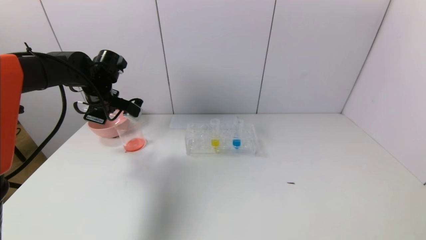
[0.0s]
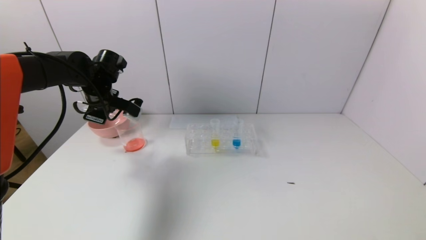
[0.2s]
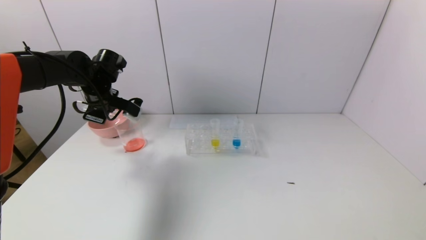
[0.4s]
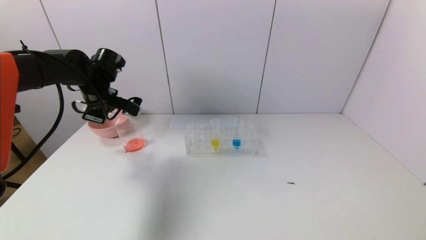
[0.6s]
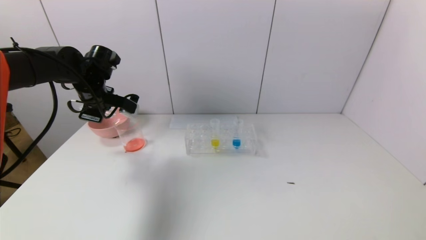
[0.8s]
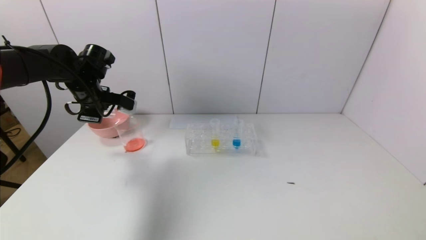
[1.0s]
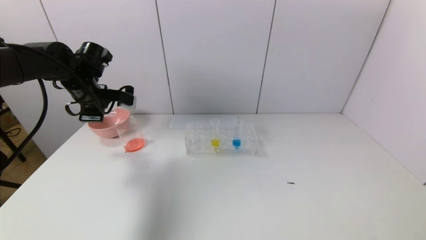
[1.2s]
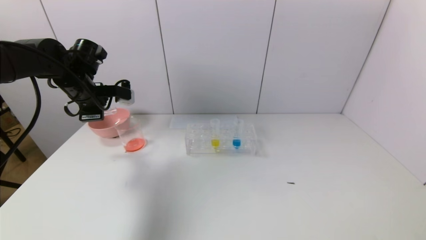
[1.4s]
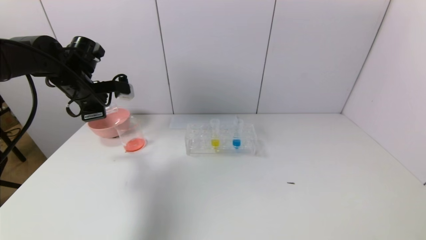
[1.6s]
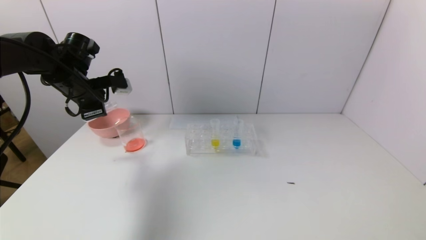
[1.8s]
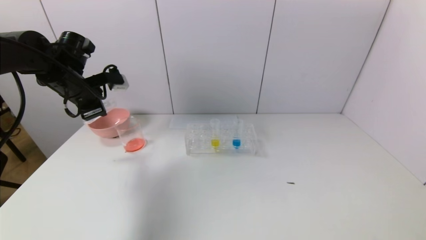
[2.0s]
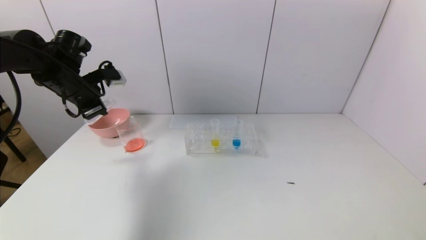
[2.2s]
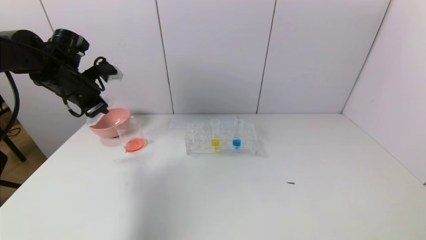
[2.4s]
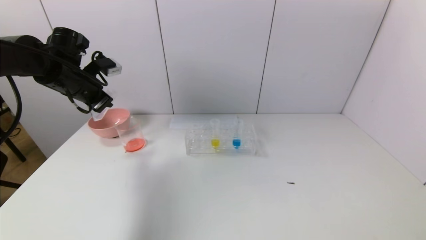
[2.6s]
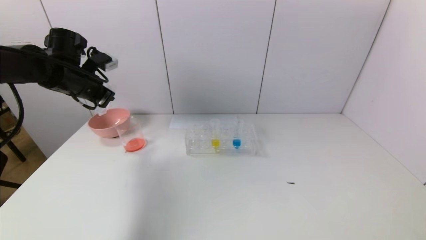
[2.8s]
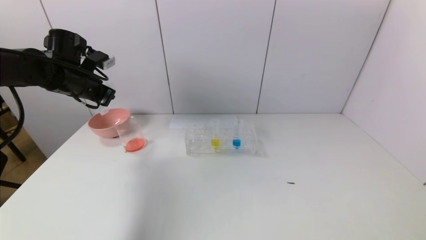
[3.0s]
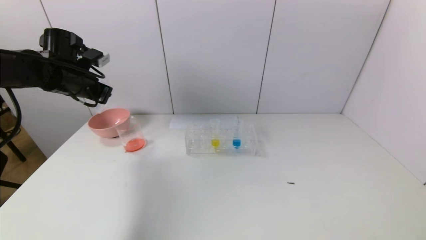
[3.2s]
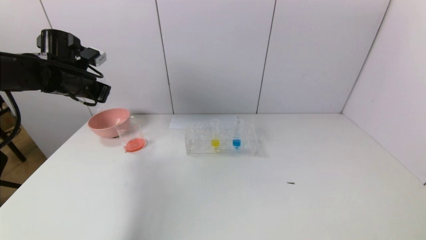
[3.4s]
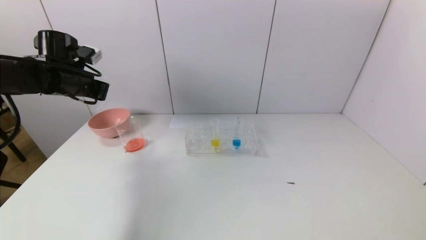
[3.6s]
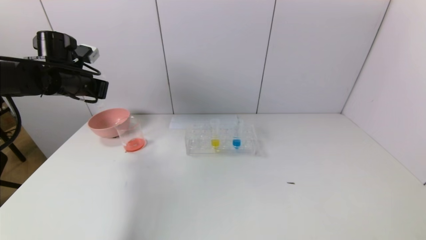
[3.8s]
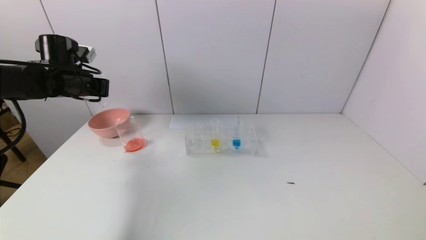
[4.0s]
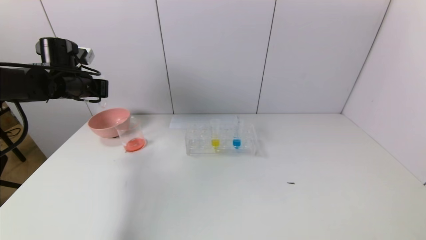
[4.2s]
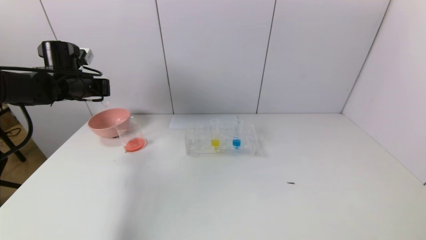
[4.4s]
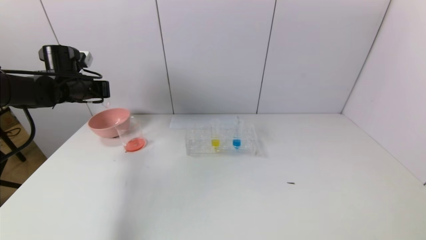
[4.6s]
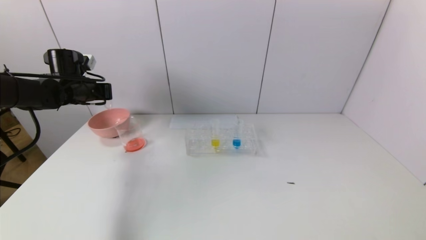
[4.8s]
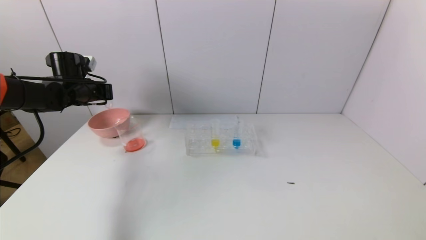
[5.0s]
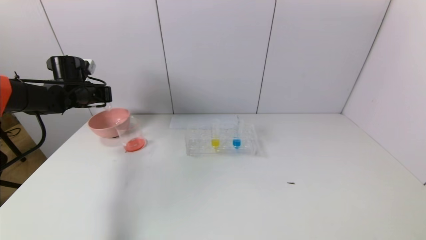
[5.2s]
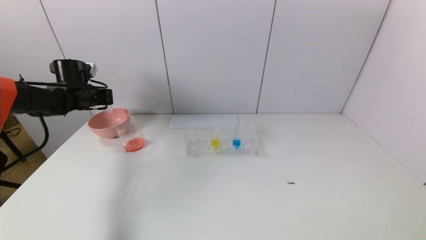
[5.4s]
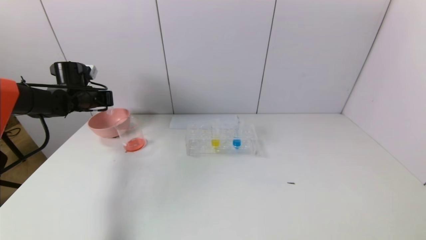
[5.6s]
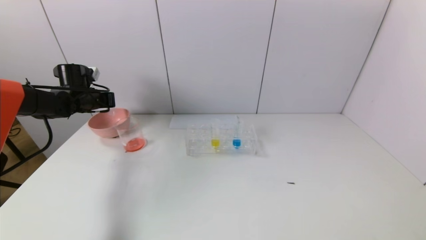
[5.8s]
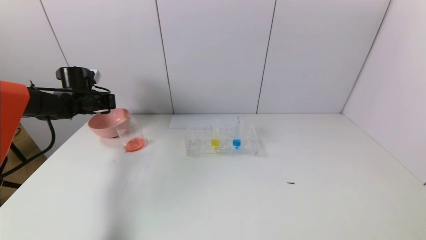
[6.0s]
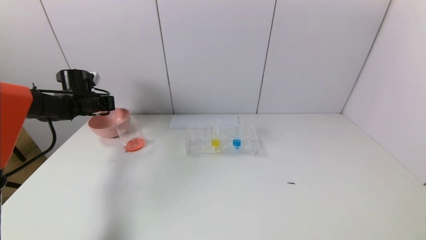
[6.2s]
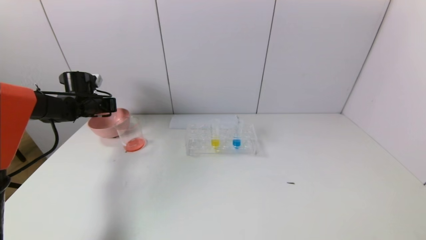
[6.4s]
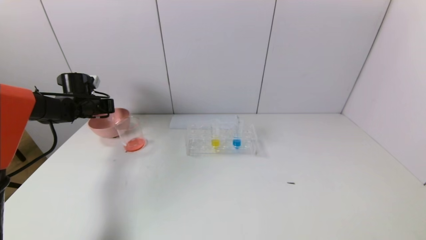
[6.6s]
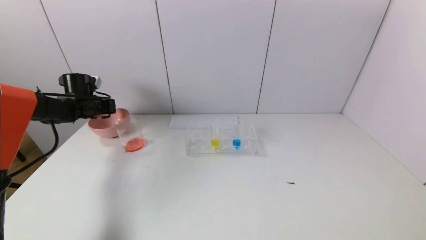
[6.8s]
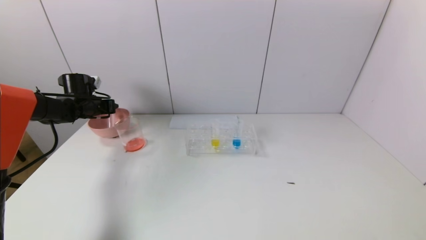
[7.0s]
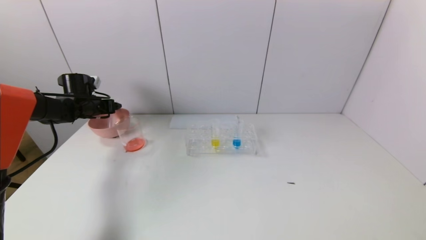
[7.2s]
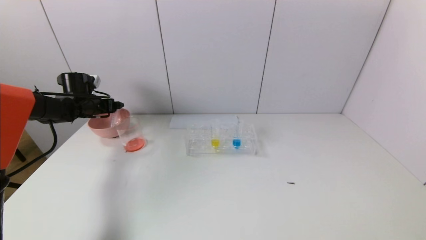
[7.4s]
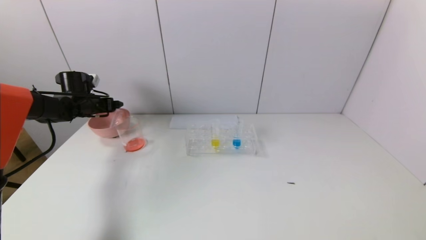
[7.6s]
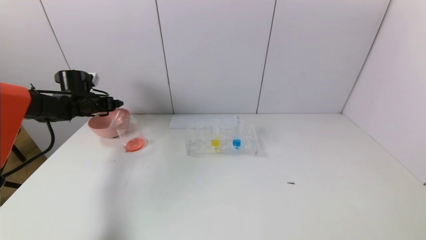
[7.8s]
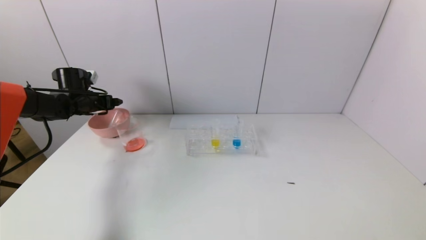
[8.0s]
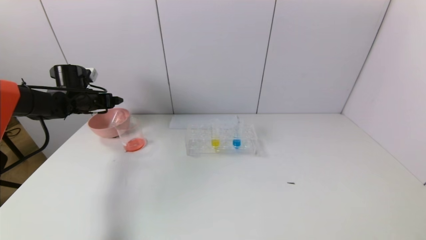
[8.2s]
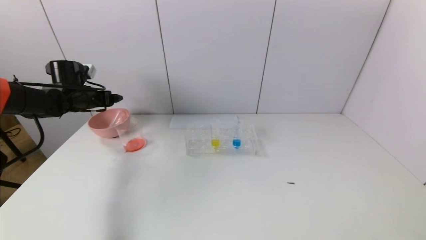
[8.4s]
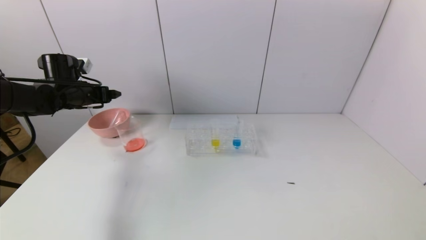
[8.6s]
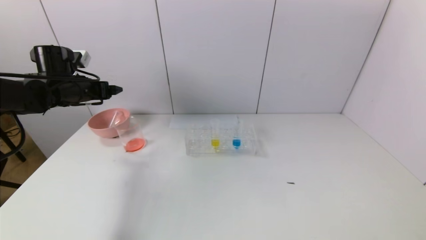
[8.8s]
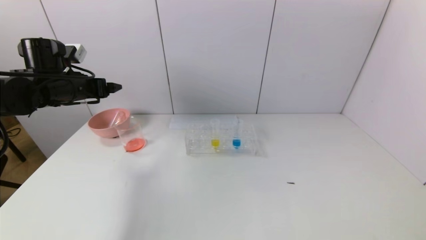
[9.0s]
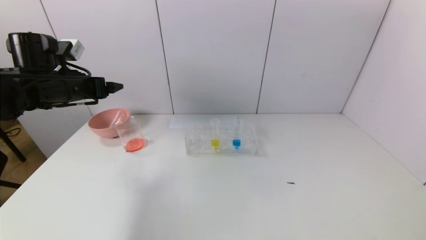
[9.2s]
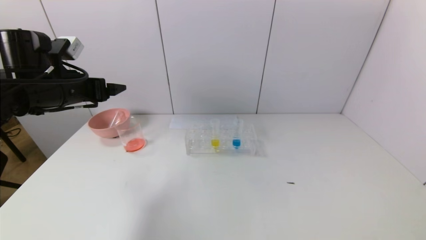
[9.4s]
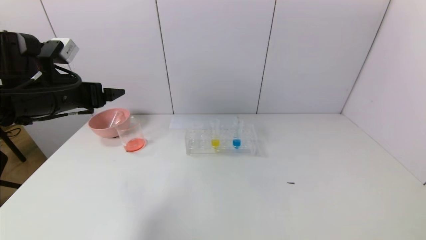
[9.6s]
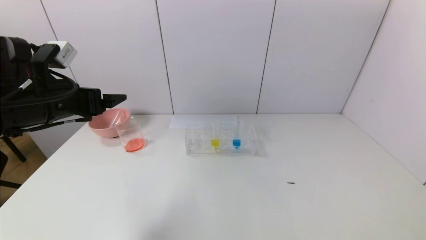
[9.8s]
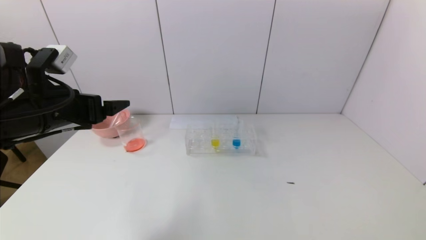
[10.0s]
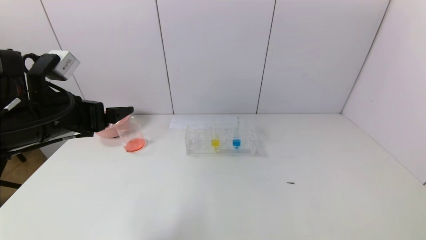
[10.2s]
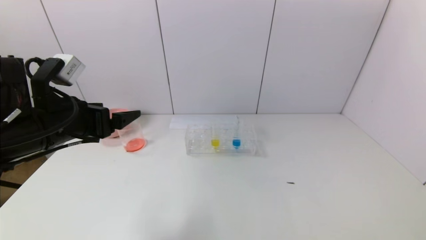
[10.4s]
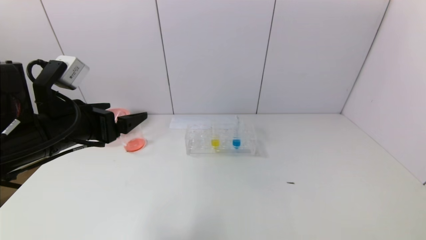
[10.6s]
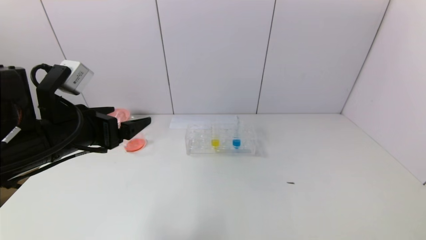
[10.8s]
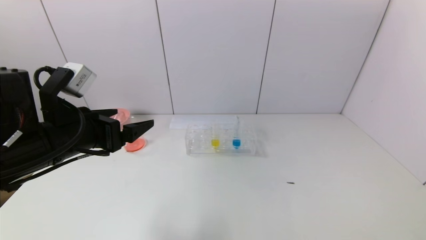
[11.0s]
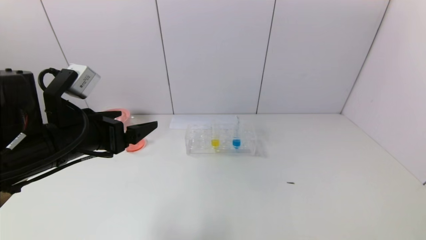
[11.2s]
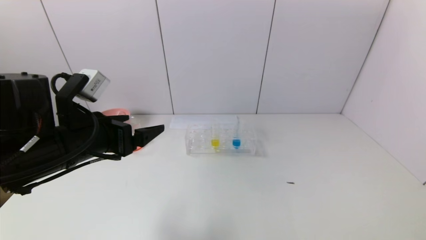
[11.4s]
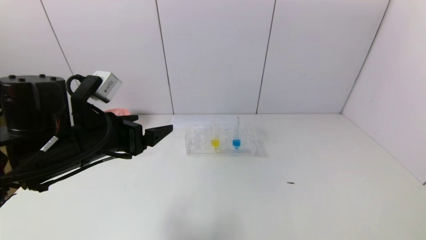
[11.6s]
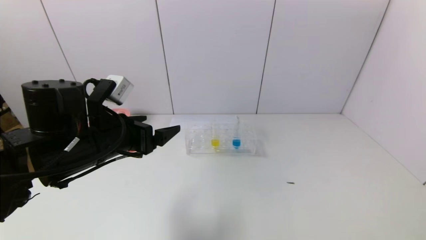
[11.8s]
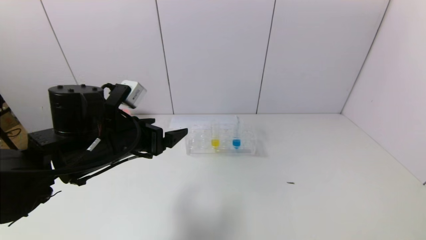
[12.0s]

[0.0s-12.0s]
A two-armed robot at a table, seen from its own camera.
Task of the whole recording: pick up the test tube with yellow pigment and the test tube with red pigment by grippers and pour them into the beaker.
Step, 1.6s to 7.2s: Place the test tube into the pink bowl with the left gripper.
4.4s to 6.0s: The left gripper is displaced downward and forward by roughly 10 cm.
6.0s to 7.6s: The left gripper opens up.
7.6s to 9.0s: The left gripper shifts some 15 cm backward, upward and to the right.
9.0s to 10.4s: The left gripper travels backward and to the right by about 15 cm.
10.4s to 12.0s: The left gripper heads to the right, covering roughly 5 cm.

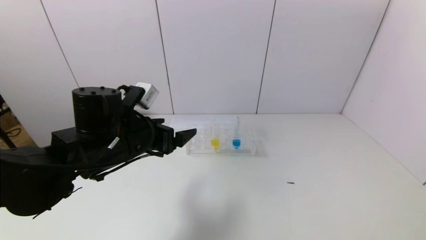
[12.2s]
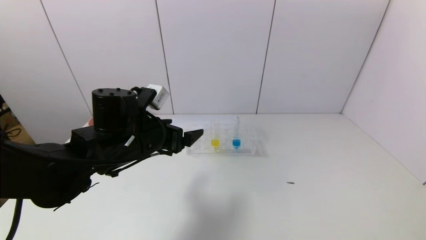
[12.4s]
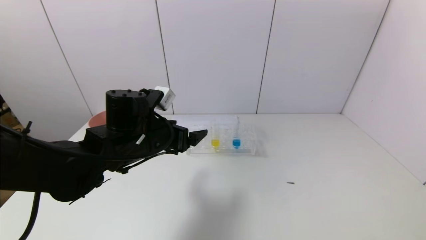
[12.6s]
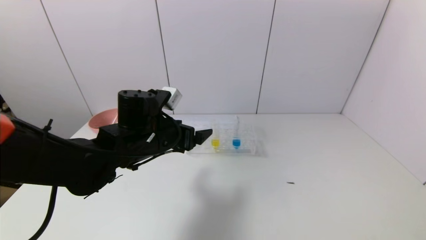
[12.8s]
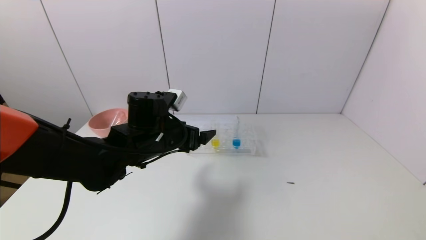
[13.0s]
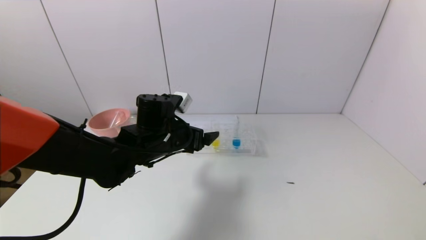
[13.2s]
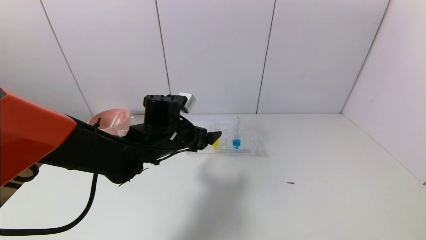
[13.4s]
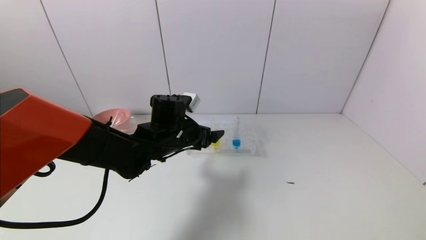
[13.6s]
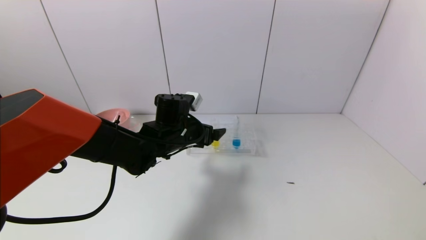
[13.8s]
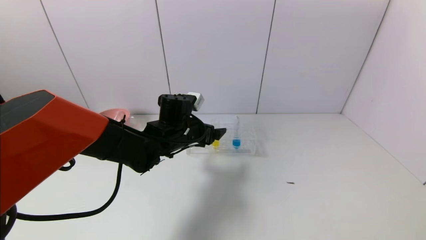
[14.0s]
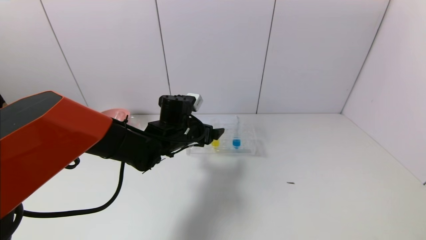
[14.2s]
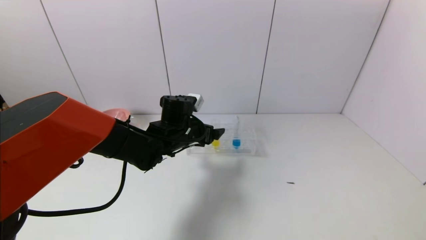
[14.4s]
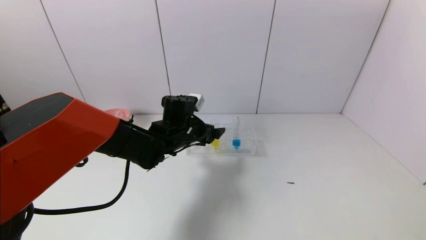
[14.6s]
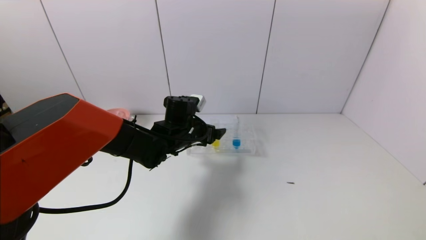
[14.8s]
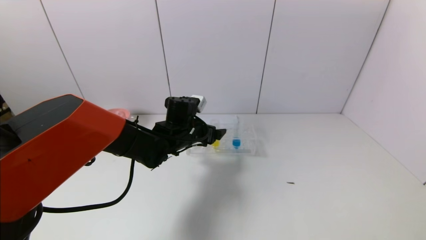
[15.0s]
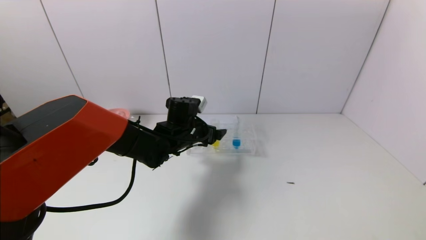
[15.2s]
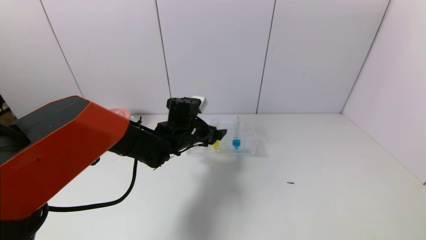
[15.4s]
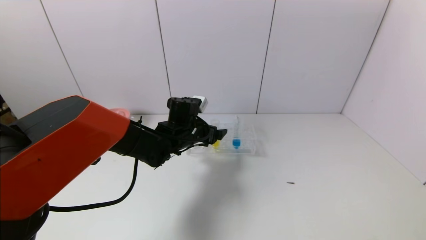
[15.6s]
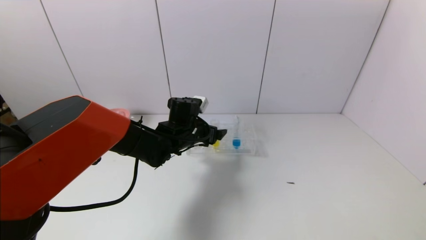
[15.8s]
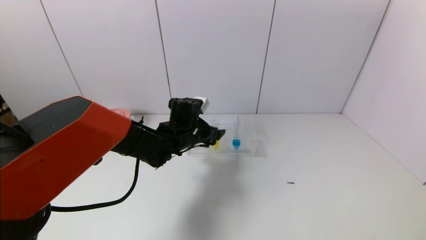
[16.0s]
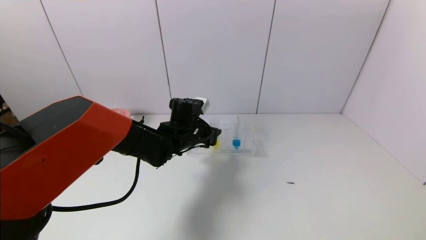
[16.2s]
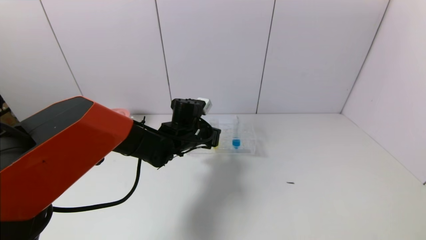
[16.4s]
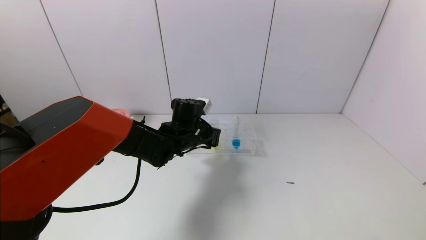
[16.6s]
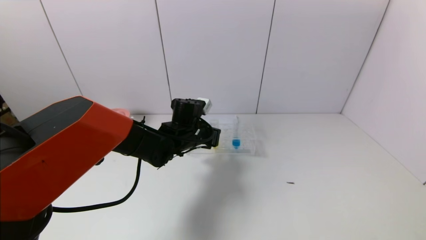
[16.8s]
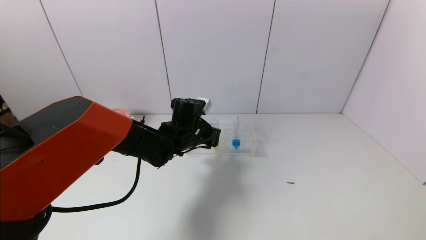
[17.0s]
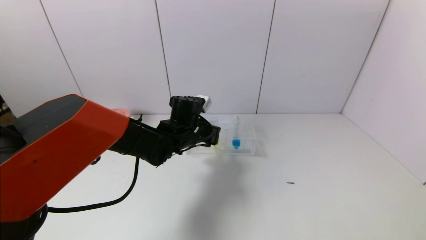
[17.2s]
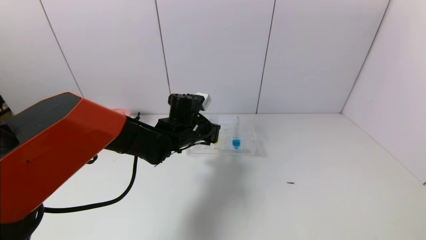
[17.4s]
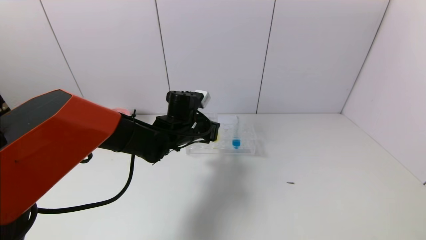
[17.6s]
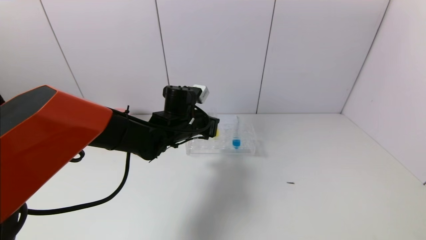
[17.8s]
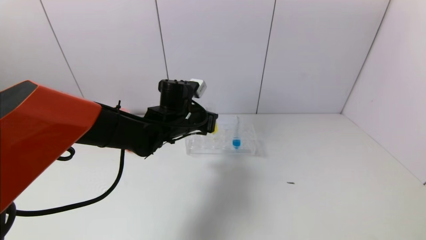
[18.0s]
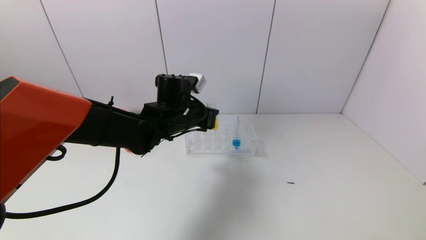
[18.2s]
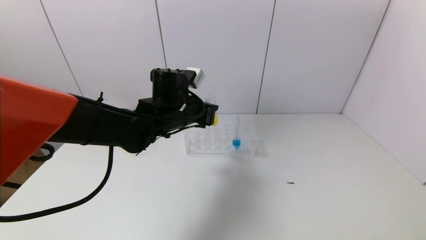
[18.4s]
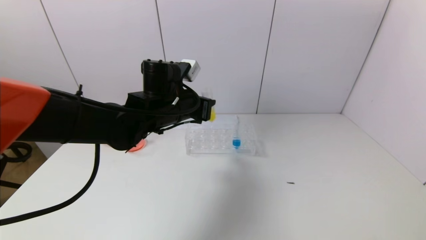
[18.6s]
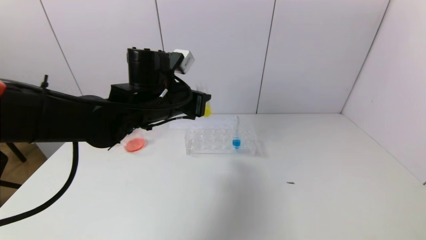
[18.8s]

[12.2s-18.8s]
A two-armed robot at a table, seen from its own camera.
Task of the whole recording: pick up the test tube with yellow pigment and the test tube with red pigment by grippers and pour them into the beaker.
Step, 12.2s to 16.4s: Grasp the yellow reagent with the left gripper.
12.2s to 13.8s: The left gripper is displaced forward and to the right by about 10 cm.
13.8s to 15.4s: There are only small adjustments of the grippers.
15.4s to 17.2s: The left gripper closes up.
17.2s to 18.8s: The left gripper is displaced upward and backward by roughly 15 cm.
